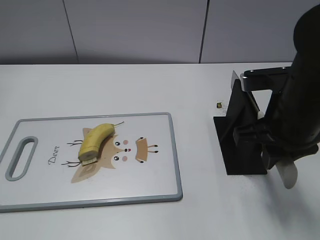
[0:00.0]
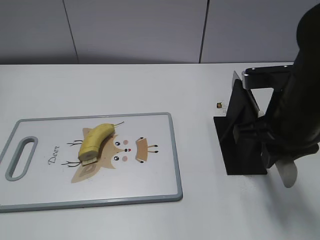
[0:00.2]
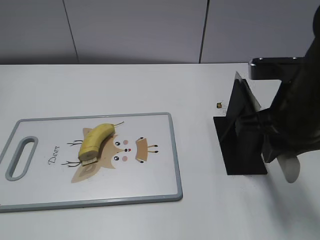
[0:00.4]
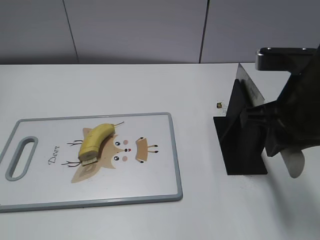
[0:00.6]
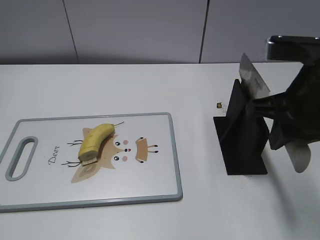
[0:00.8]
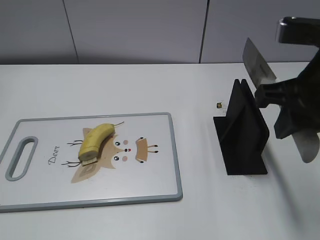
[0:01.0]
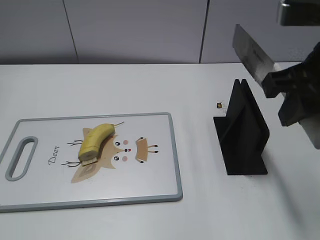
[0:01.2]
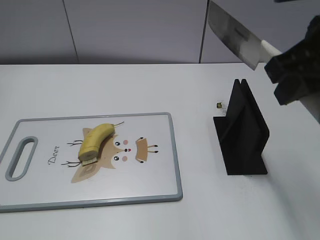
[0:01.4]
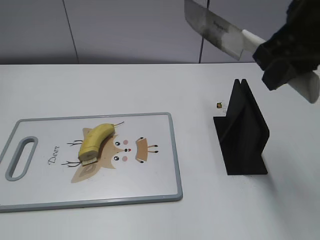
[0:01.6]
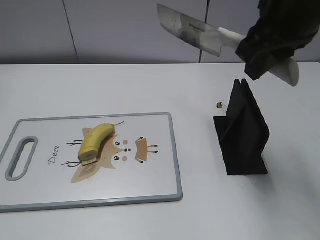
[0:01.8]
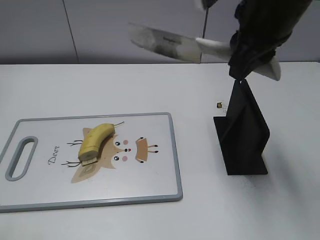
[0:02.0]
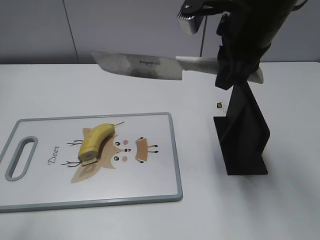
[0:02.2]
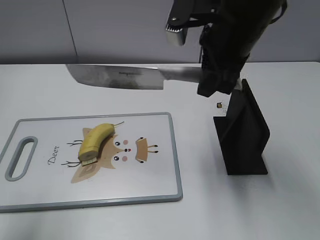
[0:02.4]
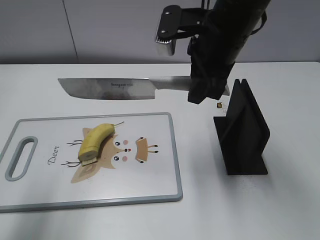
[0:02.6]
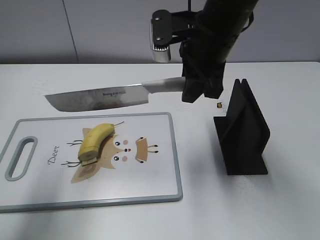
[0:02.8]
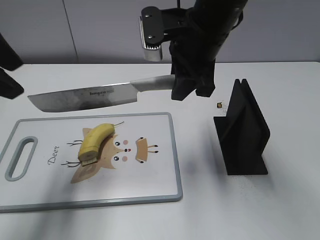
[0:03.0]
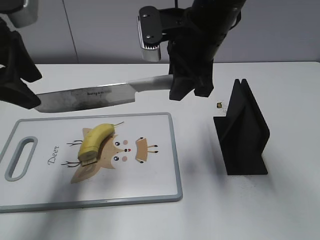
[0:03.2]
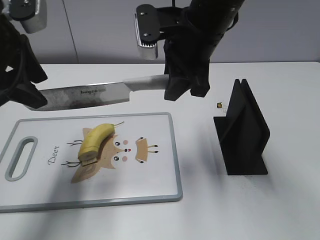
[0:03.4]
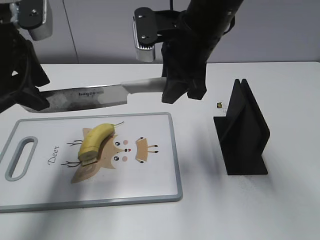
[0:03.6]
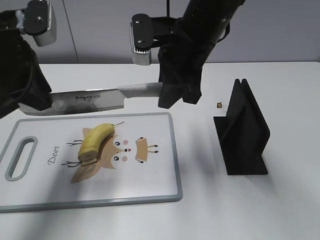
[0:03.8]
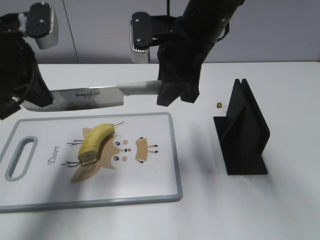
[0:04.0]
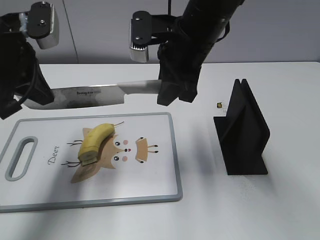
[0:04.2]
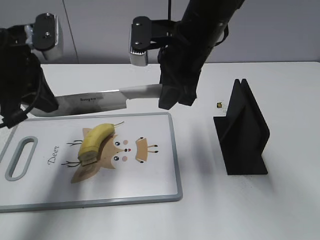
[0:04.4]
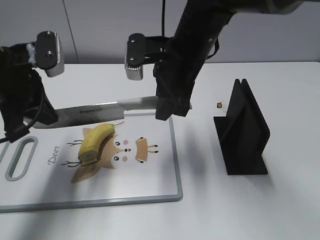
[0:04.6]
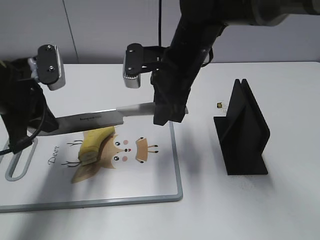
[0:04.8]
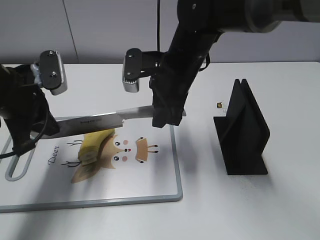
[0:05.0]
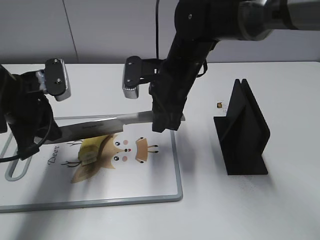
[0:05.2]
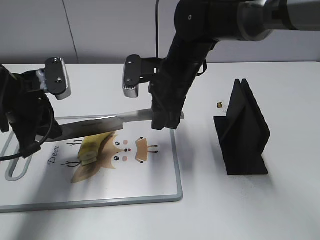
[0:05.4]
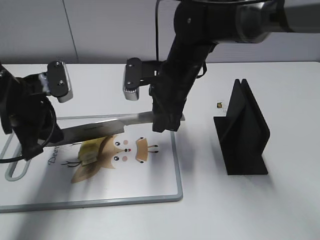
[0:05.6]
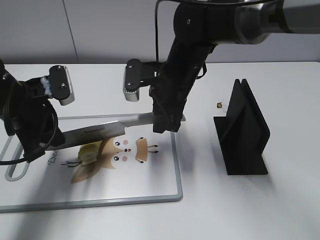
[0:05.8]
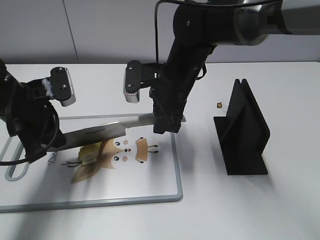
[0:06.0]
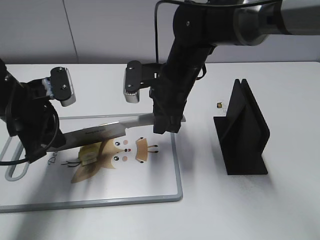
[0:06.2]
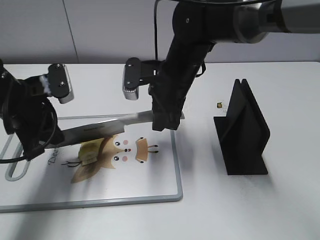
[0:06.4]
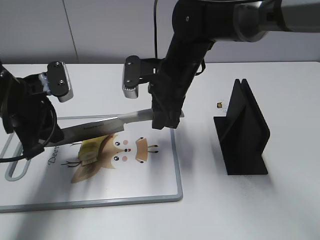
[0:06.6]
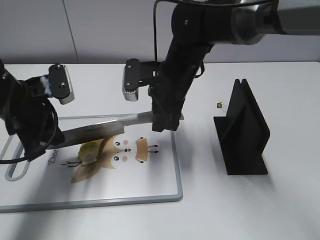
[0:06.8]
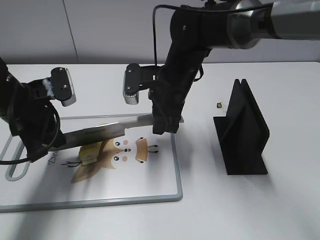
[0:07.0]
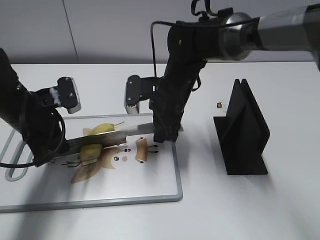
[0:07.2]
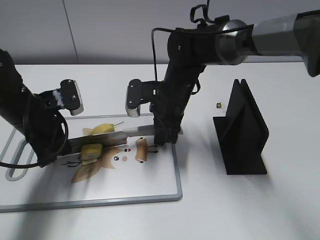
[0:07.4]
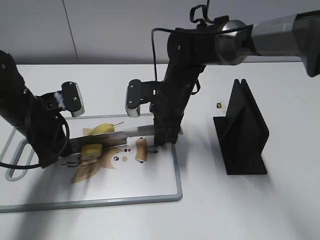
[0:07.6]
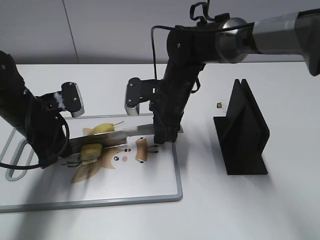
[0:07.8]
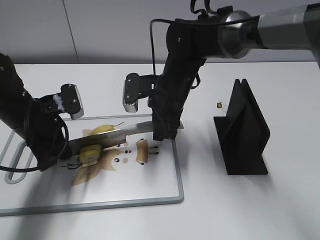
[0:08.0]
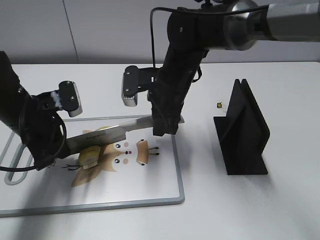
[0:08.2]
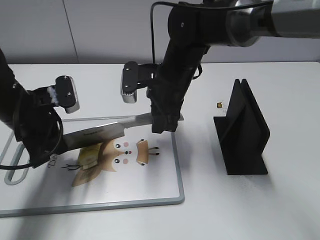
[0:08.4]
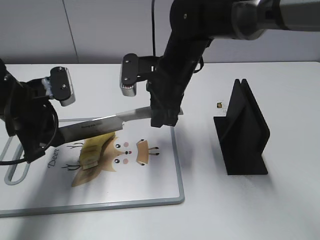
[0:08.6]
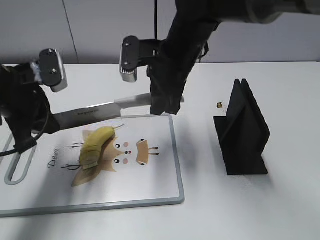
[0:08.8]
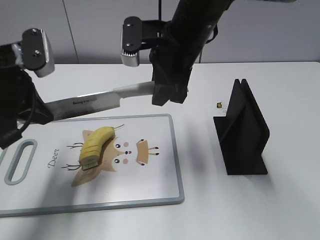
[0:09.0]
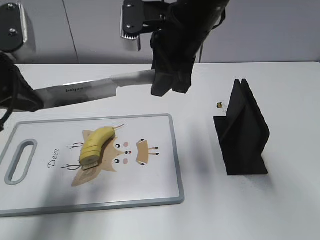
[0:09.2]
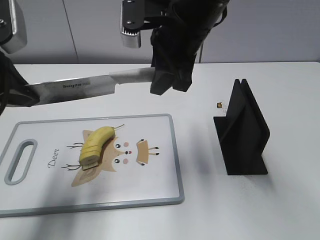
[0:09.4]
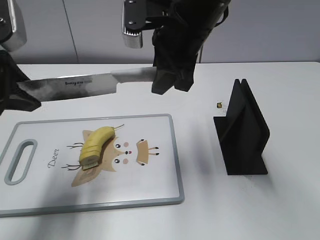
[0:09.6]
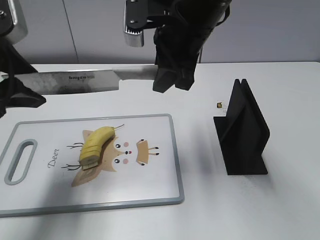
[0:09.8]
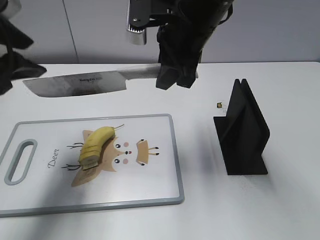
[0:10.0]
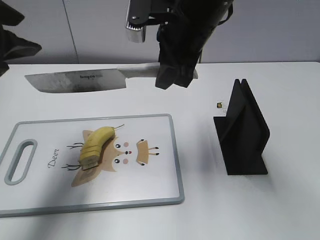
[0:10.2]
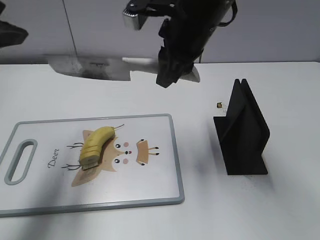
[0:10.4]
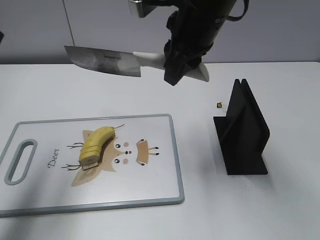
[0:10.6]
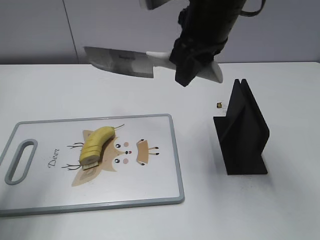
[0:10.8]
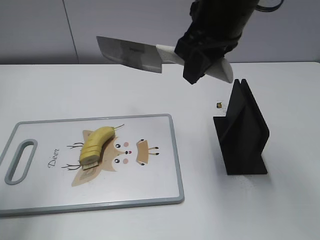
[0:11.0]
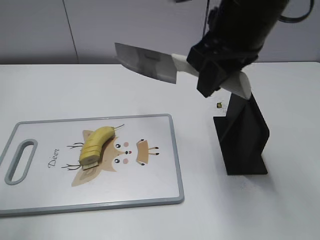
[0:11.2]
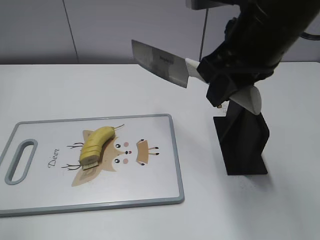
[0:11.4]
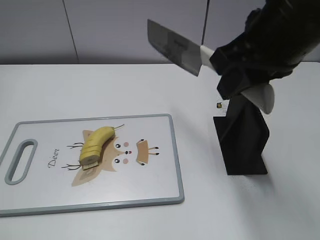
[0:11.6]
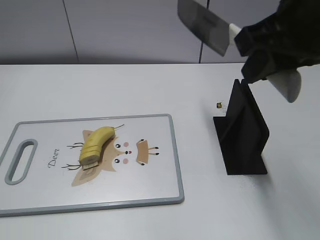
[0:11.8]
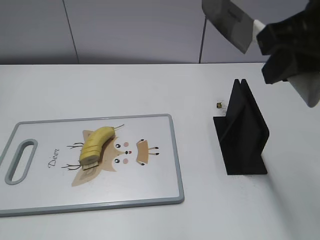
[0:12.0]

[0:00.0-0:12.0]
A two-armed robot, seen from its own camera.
Task of the whole recording: cut banana.
Step, 0:01.4 to 0:06.4: Lift the knife with your right hand.
Step, 0:06.8 to 0:11.2: Cut the banana with your right hand.
0:00.0 to 0:01.6: The right gripper goes about 10 cm upward; the left gripper ends up approximately 5 cm from where it was.
0:01.6 to 0:03.0: The left gripper moves forward, about 25 cm; the right gripper heads to the left, forward and downward, covering roughly 15 cm.
0:03.0 to 0:04.4: The left gripper travels downward by approximately 10 cm, and closes its fingers.
0:04.4 to 0:06.0: The grippers both shift downward by approximately 10 cm.
0:06.0 to 0:07.6: The right gripper heads downward, covering about 5 cm.
0:07.6 to 0:09.0: The grippers both shift upward by approximately 15 cm.
0:09.0 to 0:10.4: The left gripper is displaced upward by roughly 10 cm, and opens its fingers.
0:10.4 to 0:12.0: The right gripper is displaced backward, to the right and upward by approximately 20 cm. Meanwhile the left gripper heads backward, covering roughly 25 cm.

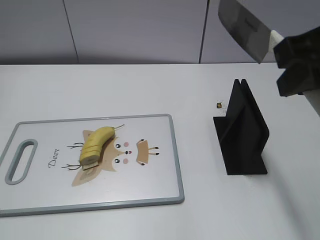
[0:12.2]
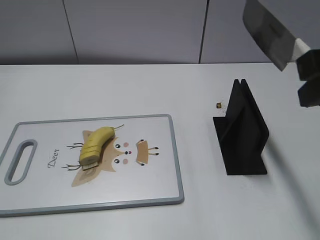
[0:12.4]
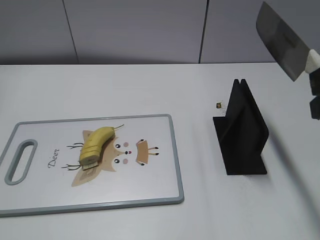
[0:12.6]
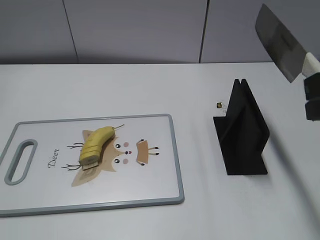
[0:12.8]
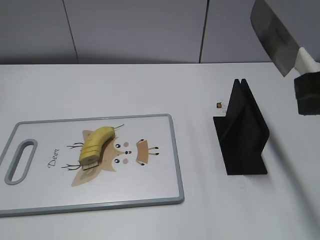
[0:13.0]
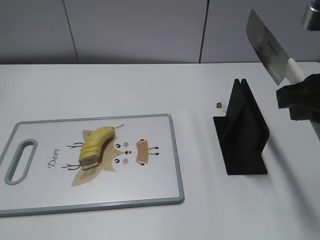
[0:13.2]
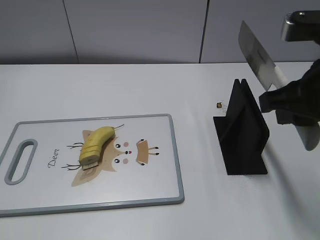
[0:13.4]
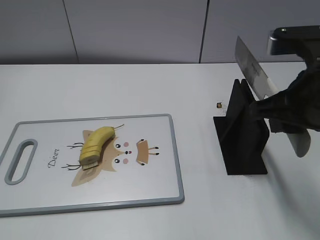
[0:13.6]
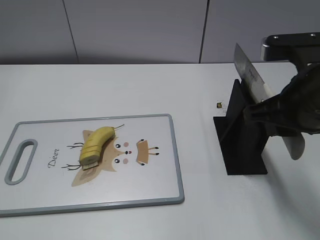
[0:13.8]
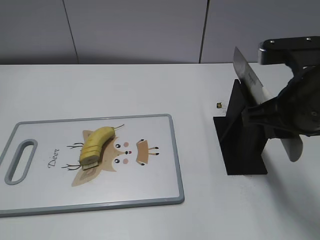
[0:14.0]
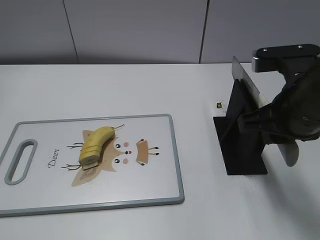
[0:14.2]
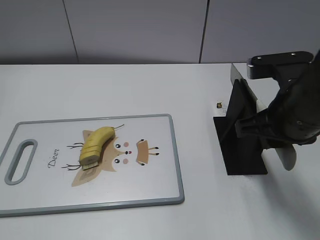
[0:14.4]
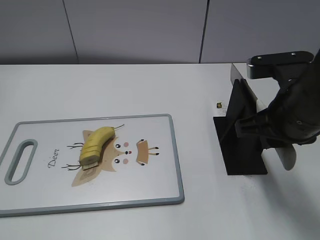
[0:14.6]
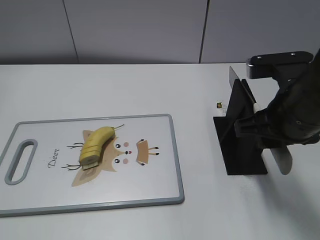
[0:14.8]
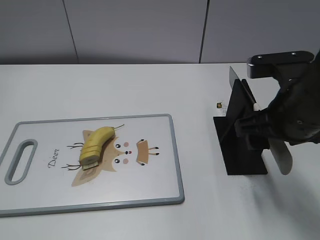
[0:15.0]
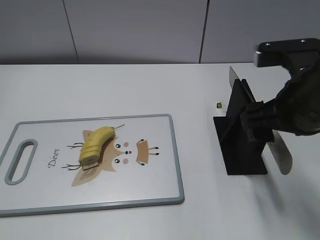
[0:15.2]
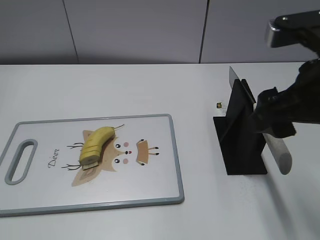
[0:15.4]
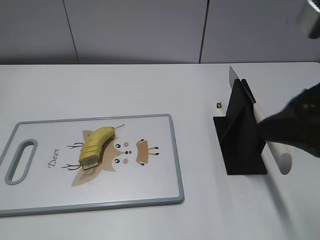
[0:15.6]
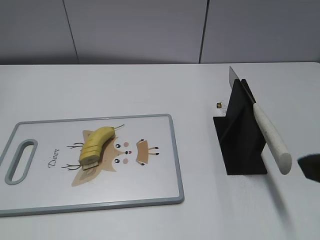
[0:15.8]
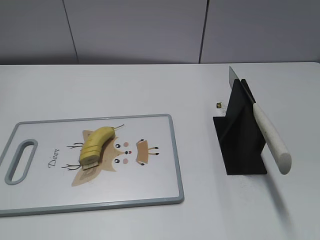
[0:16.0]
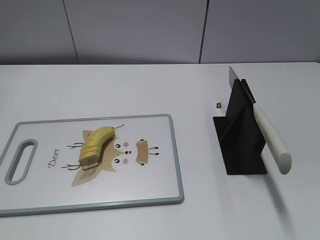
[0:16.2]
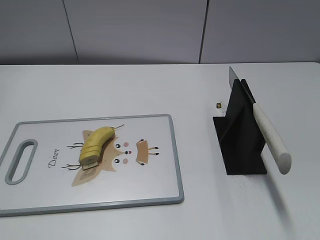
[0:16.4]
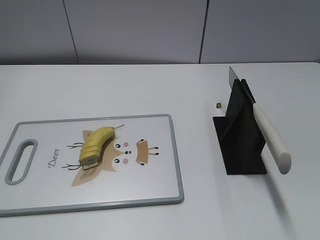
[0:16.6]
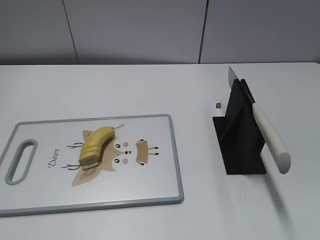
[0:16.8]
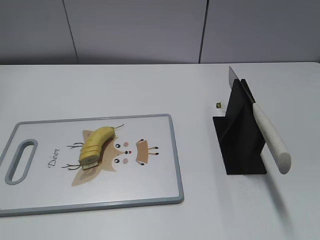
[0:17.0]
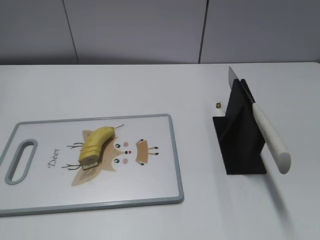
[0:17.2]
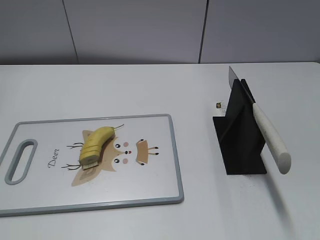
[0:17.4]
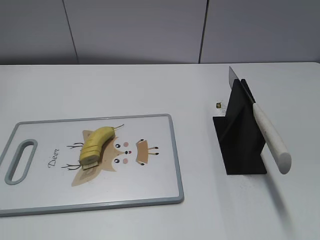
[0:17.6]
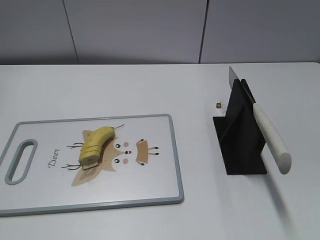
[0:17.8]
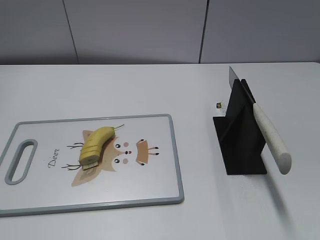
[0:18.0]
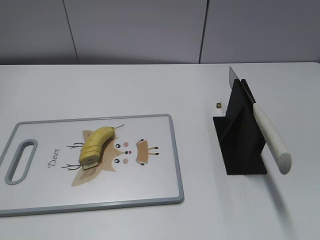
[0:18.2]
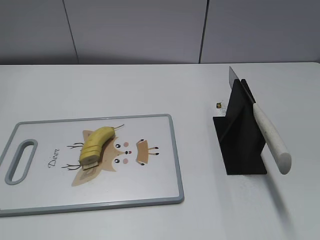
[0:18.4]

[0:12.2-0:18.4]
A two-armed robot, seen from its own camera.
Task of the whole recording: cut banana.
Step, 0:12.2 to 0:13.2: Lift the knife with your right hand.
Step, 0:13.4 to 0:18.4: Place the knife on the storage rack with your right hand.
0:12.2 to 0:13.8: The right gripper goes roughly 10 cm downward.
0:13.8 to 0:15.4: The right gripper opens up.
0:15.4 to 0:16.8: The right gripper travels backward and to the right by roughly 25 cm.
